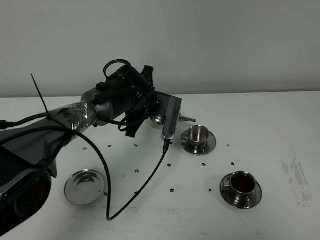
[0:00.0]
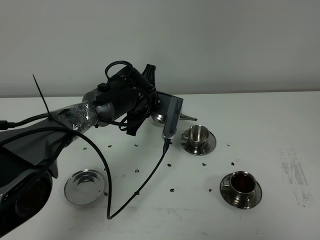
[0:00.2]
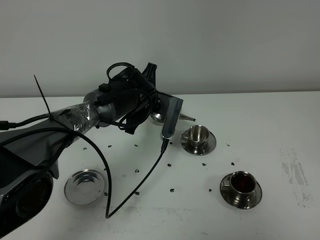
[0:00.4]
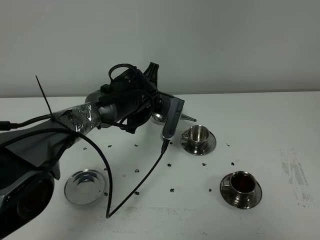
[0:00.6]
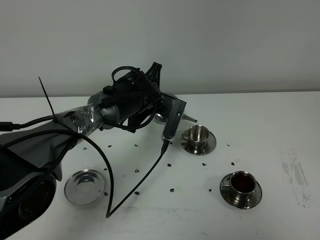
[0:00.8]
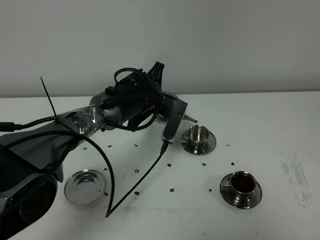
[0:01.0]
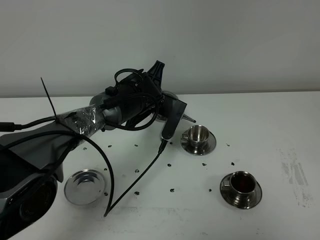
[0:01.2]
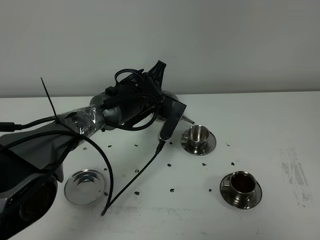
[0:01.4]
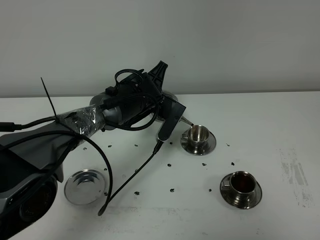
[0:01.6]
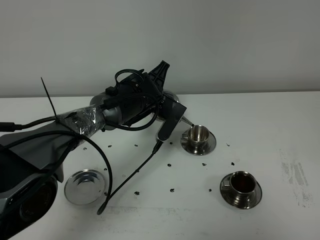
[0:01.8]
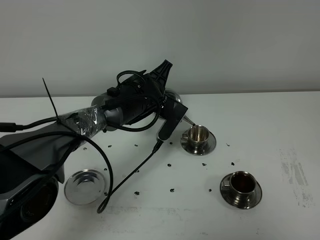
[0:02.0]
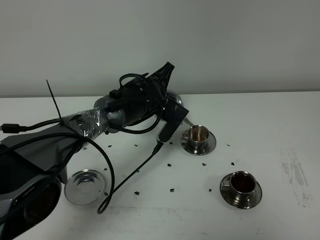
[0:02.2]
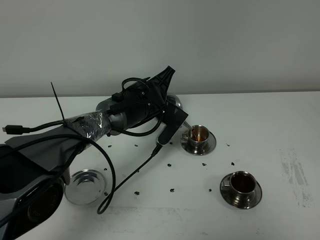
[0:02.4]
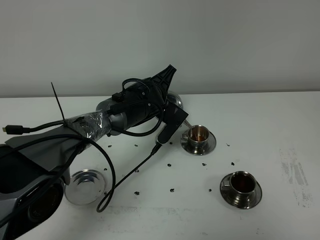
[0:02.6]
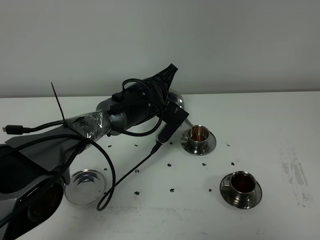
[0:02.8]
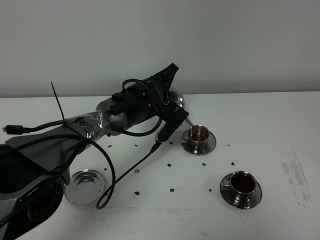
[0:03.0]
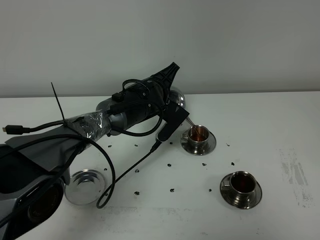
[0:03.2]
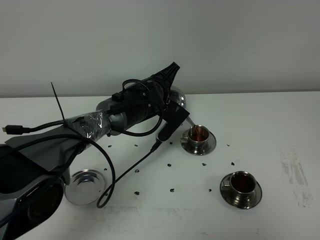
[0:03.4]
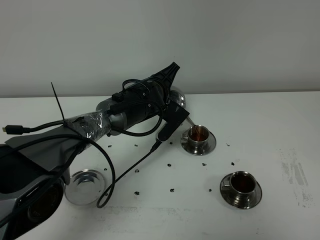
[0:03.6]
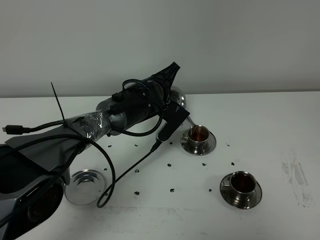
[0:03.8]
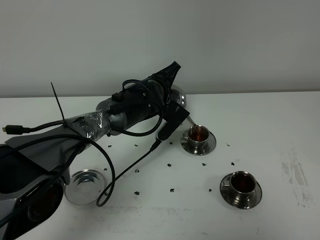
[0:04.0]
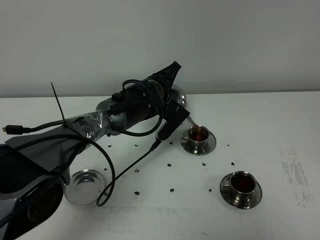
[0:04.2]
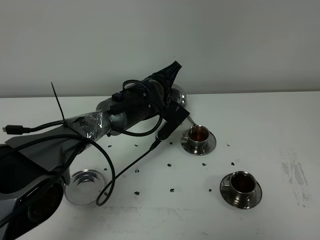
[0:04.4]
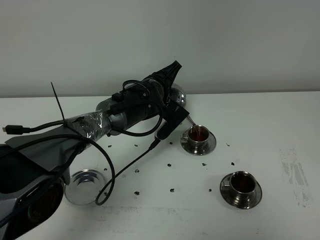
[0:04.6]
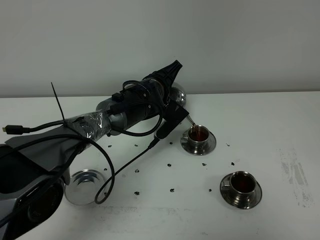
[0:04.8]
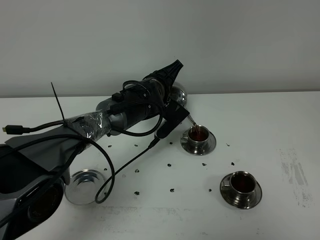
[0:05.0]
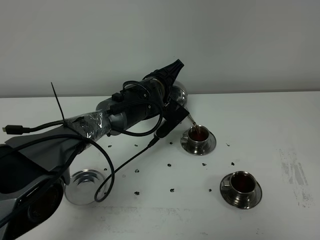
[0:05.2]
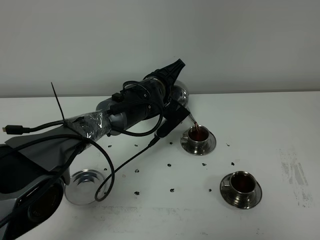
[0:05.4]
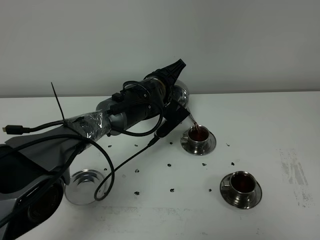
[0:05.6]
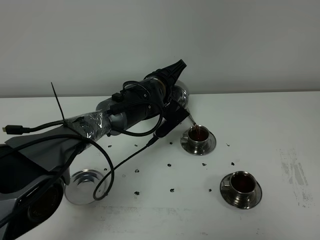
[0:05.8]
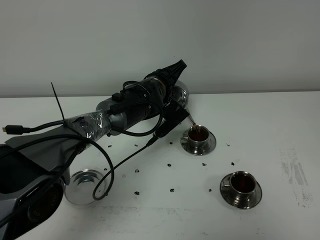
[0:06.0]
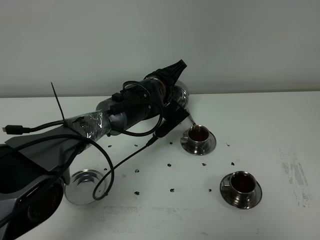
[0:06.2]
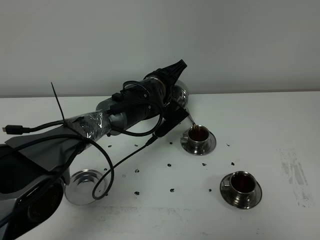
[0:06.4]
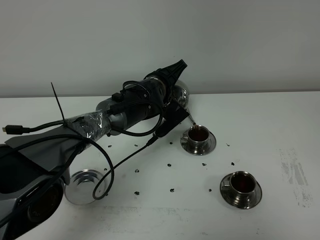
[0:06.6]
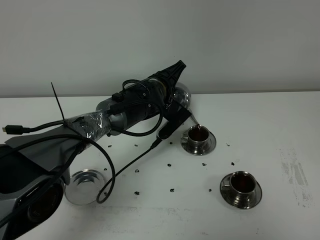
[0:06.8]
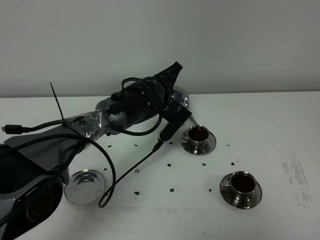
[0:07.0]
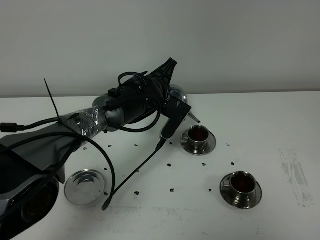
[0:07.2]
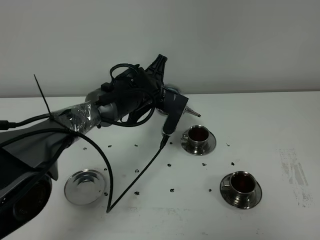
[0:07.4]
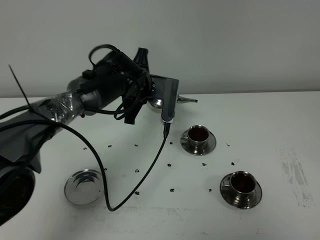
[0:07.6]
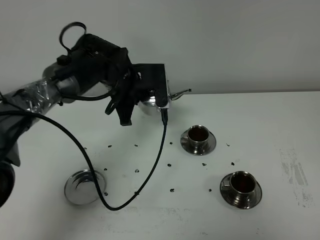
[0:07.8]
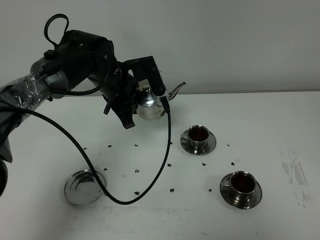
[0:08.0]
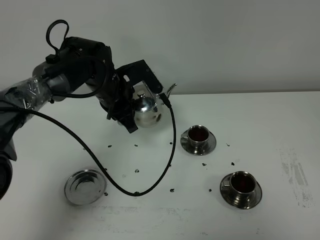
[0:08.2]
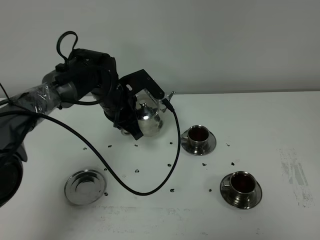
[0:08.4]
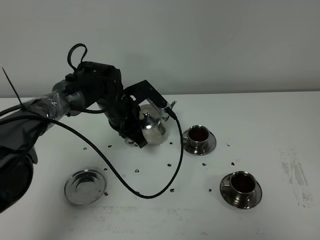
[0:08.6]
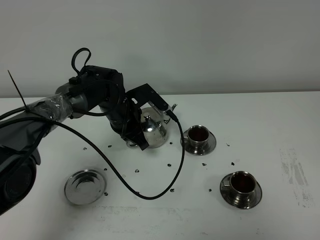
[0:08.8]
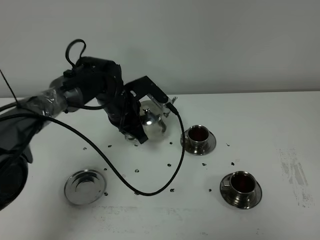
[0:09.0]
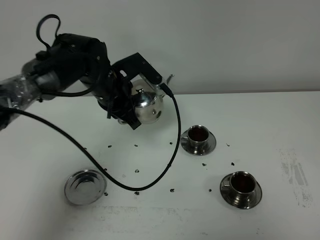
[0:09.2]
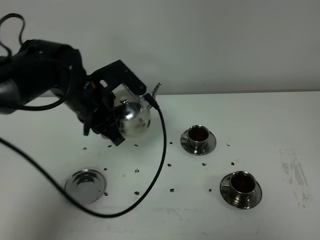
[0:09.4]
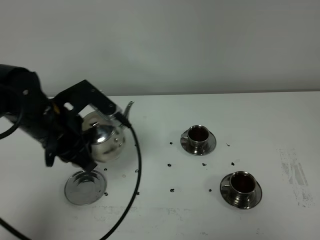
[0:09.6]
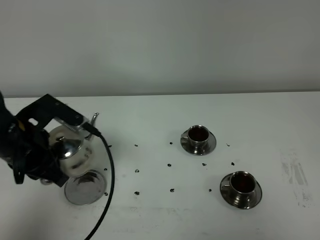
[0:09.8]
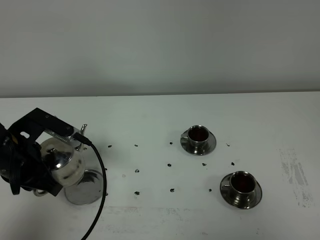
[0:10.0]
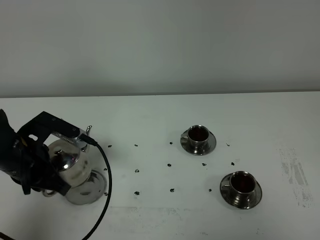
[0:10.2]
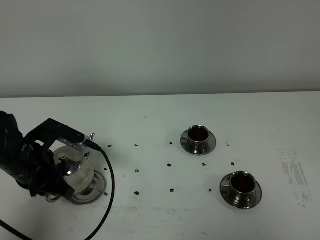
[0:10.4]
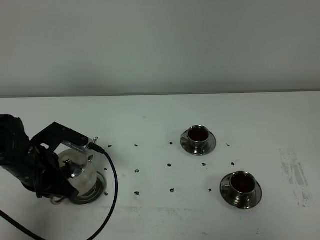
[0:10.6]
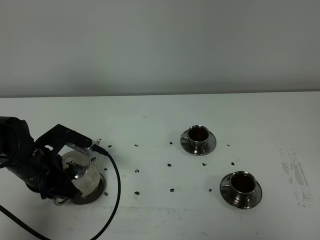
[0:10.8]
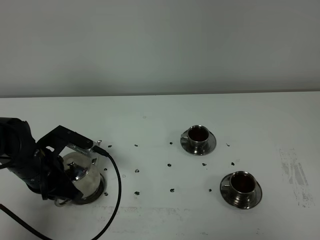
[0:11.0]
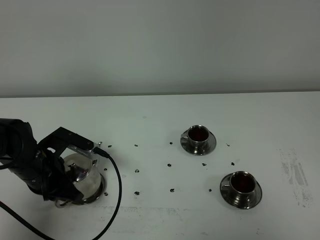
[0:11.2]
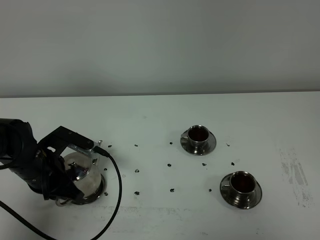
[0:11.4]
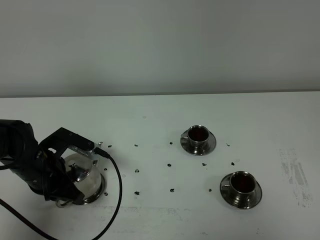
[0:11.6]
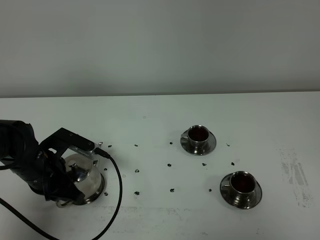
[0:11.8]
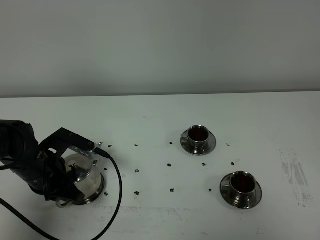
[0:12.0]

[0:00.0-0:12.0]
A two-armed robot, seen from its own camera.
Task of the whole recording: grasp the stainless steel teapot and pour the tea into the two stainless steel teacups one by one, put the stainless steel teapot back in its original place.
Step, 0:00.0 to 0:07.6: Pour tea into the teacup with the left gripper.
0:00.0 to 0:01.6: The grippers stay close to where they were, moving slightly.
0:01.6 to 0:03.0: There are only small adjustments of the grippers.
0:03.0 to 0:04.4: The two grippers keep their place.
0:04.4 to 0:06.0: The grippers stay close to where they were, moving slightly.
0:06.0 to 0:07.6: The left gripper changes place by about 5 cm.
0:09.0 to 0:10.4: The left gripper heads backward and to the left, covering approximately 20 cm.
0:10.4 to 0:12.0: The grippers stay close to where they were, moving slightly.

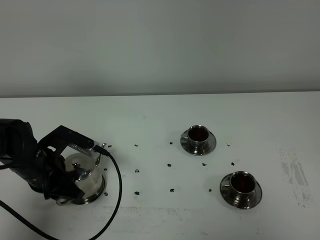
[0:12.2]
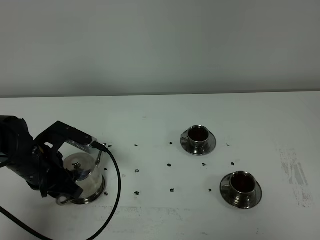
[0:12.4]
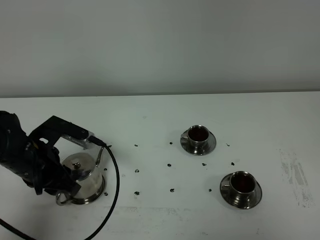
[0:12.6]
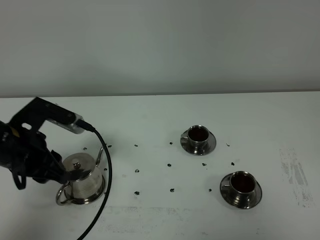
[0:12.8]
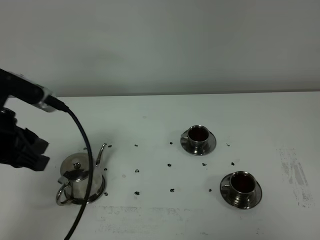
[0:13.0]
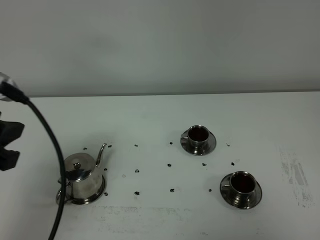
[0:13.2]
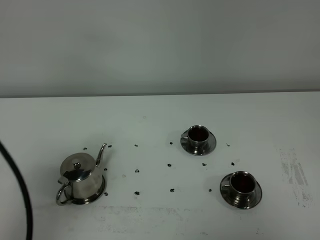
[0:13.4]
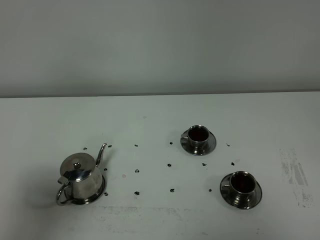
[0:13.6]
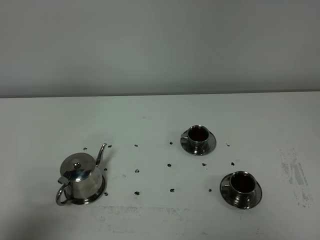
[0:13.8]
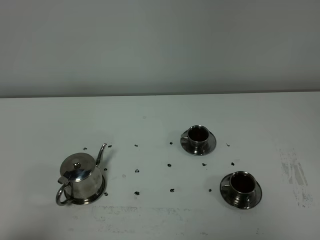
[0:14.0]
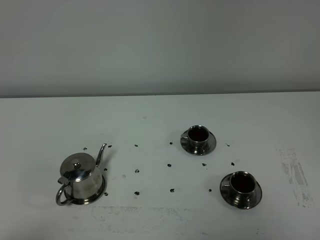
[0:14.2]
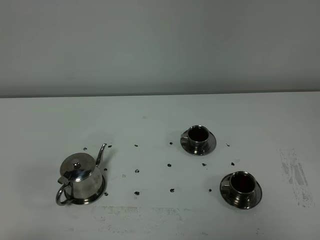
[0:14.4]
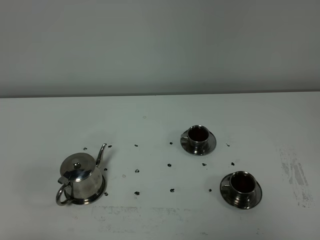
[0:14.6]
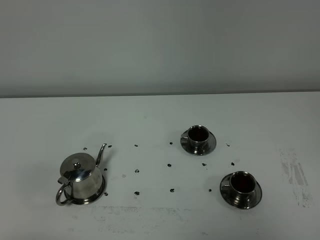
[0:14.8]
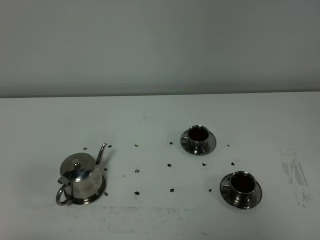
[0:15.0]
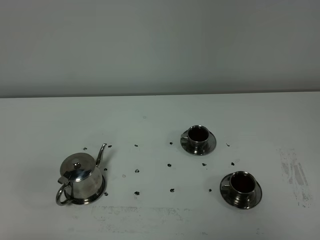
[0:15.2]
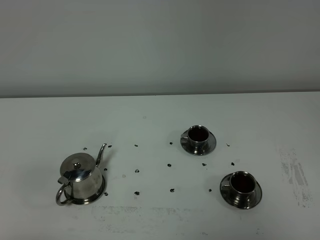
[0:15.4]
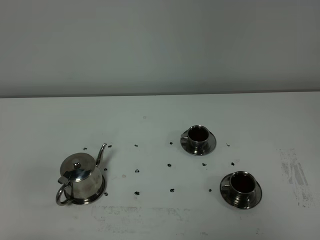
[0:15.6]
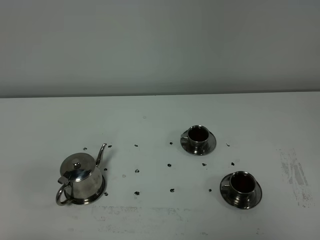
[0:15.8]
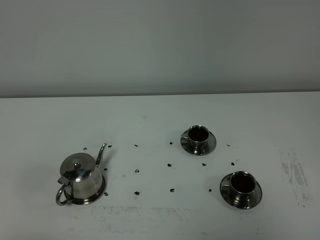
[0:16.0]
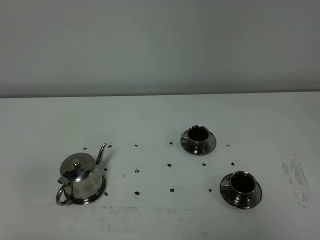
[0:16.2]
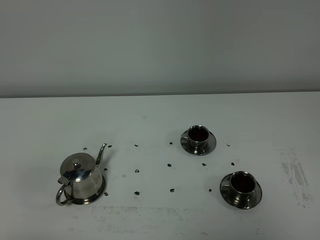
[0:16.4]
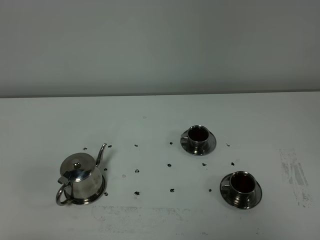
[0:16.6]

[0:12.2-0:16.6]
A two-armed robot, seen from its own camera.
Task of the whole recording: grasp the stainless steel teapot and pour the tea into the two stainless steel teacups one by one, put the stainless steel teapot back in its original place.
0:12.2 to 0:13.6: The left gripper moves upward and backward, about 30 cm.
0:13.6 to 0:15.2: The left gripper heads downward and backward, covering some 15 cm.
0:15.2 to 0:16.6: Neither gripper changes place.

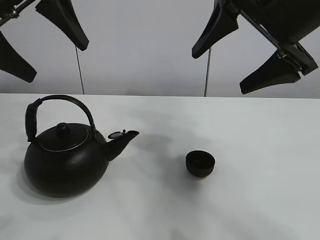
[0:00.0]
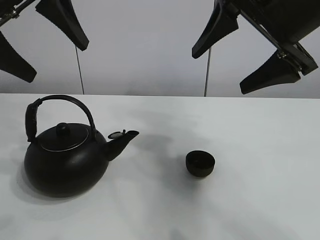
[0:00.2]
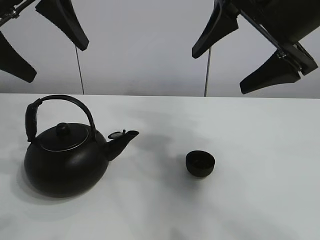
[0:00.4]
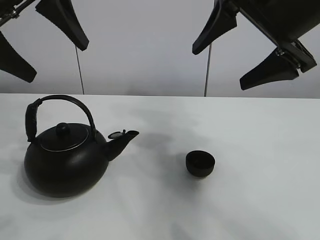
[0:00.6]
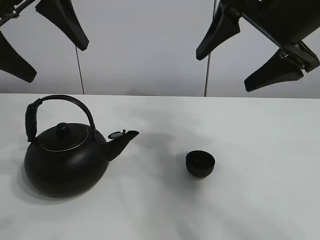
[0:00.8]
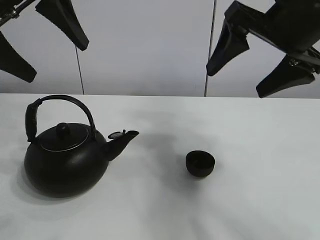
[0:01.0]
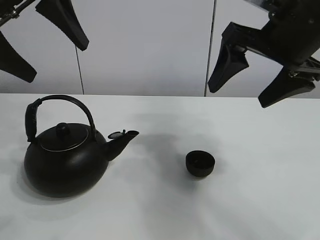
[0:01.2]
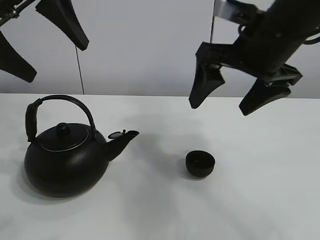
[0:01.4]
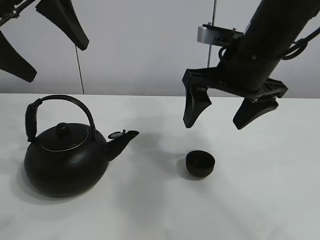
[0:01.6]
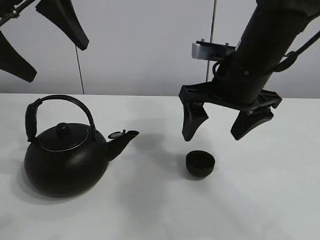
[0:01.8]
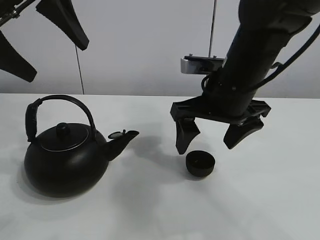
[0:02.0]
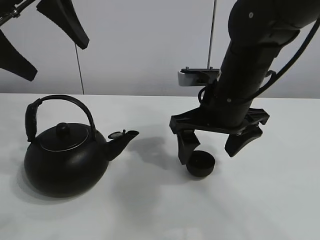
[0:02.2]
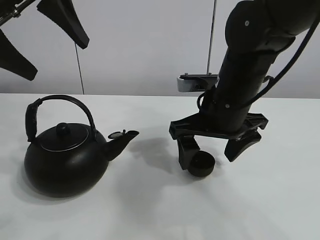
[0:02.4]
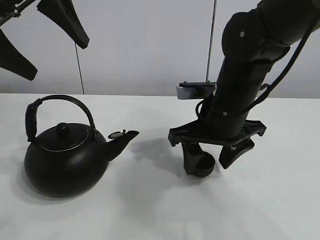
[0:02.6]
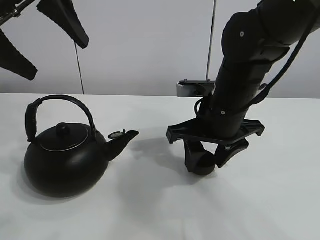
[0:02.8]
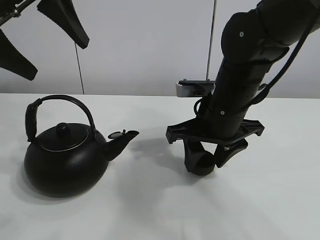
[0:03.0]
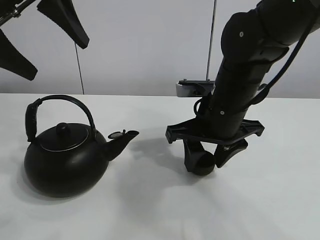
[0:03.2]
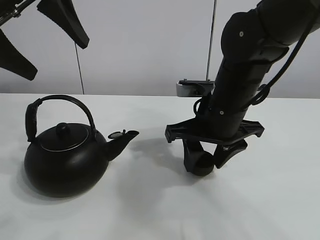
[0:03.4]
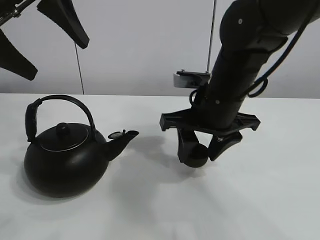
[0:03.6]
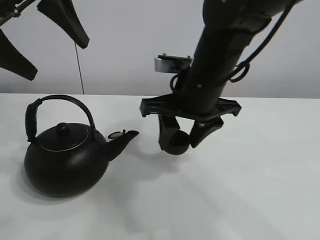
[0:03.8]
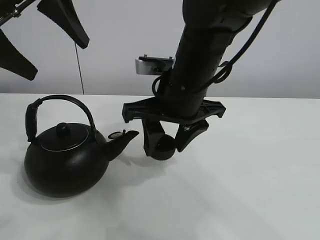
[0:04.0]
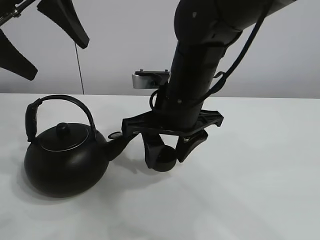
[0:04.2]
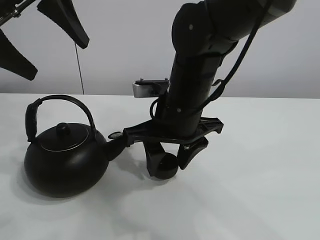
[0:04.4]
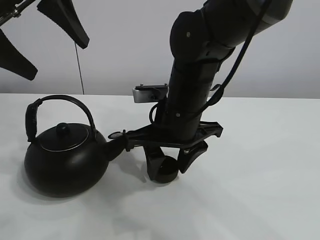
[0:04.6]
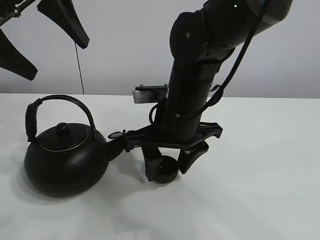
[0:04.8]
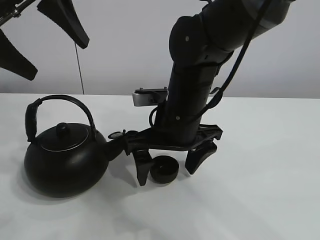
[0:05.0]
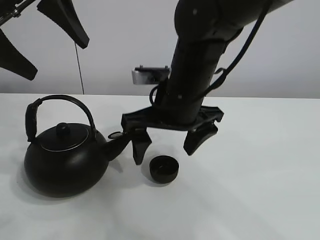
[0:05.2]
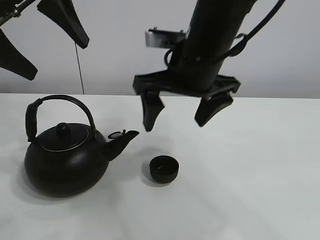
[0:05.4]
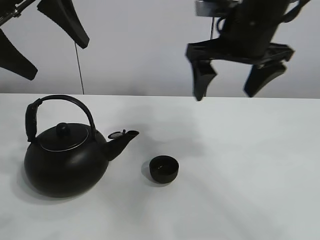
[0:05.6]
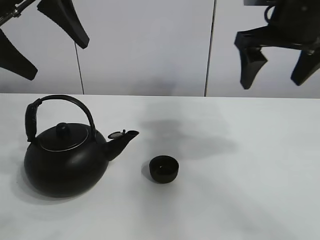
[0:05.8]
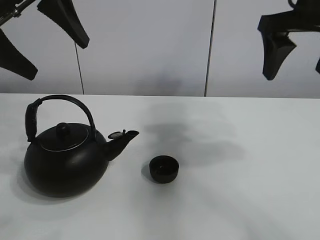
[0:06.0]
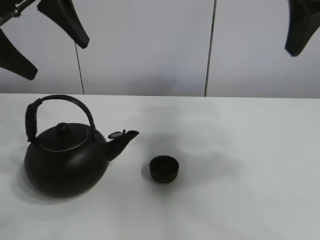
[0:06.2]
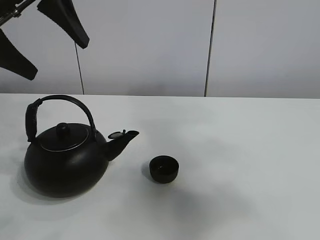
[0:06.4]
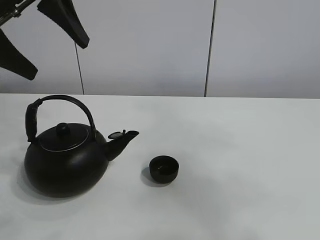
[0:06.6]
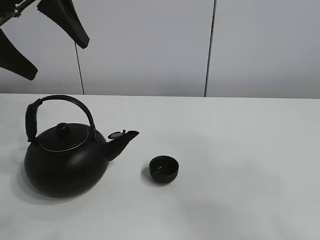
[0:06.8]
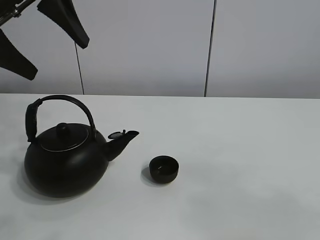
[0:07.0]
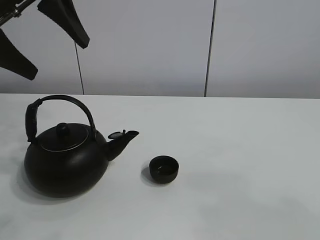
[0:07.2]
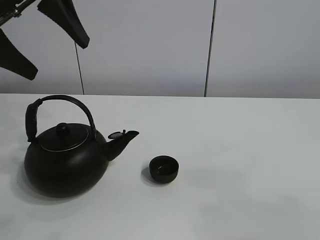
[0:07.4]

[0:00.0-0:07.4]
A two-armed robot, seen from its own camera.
Task of the whole recording: pour tea into the teacup.
Step, 0:00.0 to 0:03.4: Pick up the teacup with the right gripper.
Step, 0:03.6 to 0:04.6: Place the teacup in the center of view with the right gripper.
0:01.4 to 0:03.0: The right gripper is displaced downward by some 10 cm, and closes up.
0:03.0 to 0:04.4: The right gripper travels to the left by about 5 cm.
0:04.4 to 0:06.0: The right gripper heads to the right and upward, covering approximately 25 cm, and opens.
0:06.0 to 0:07.4: The right gripper travels backward by approximately 30 cm.
